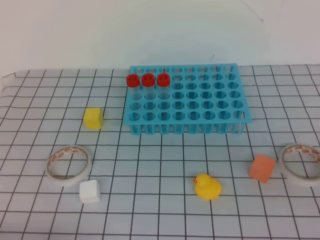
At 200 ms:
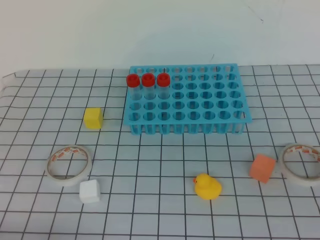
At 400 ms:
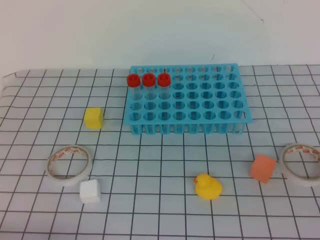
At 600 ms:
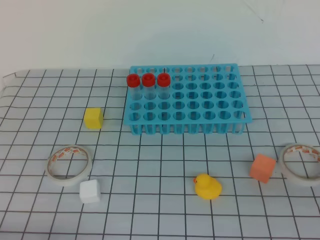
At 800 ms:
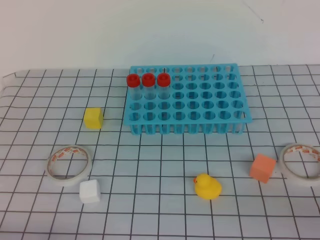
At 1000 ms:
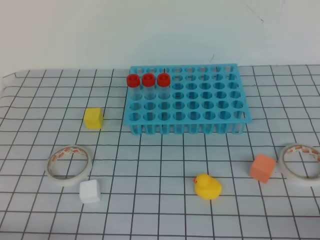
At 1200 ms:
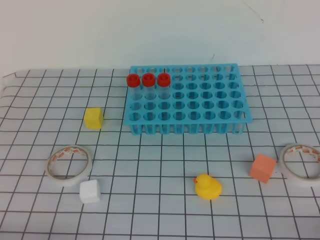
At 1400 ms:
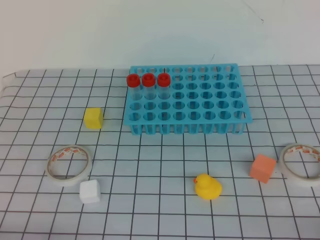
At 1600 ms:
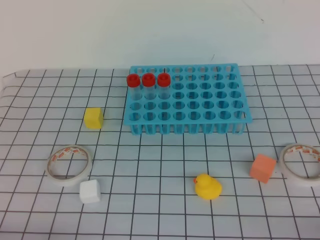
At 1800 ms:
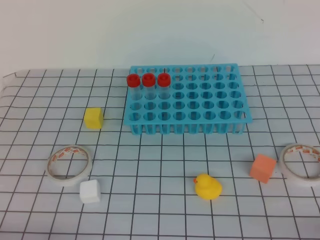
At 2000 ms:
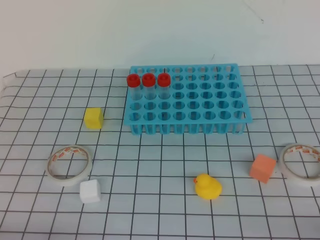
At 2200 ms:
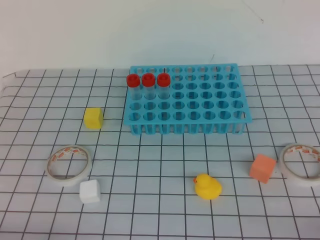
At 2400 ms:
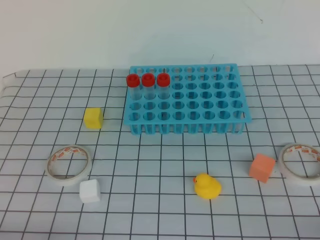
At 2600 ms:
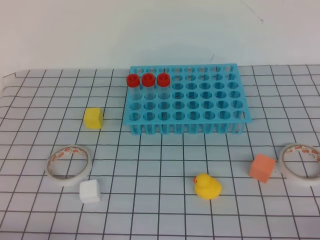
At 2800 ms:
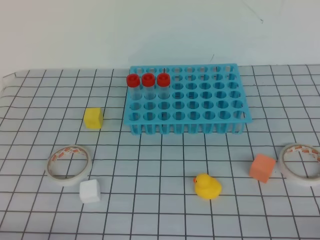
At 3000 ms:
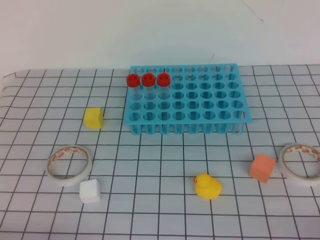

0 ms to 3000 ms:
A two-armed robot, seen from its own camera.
1600 ms to 3000 ms: Neither gripper changes place.
